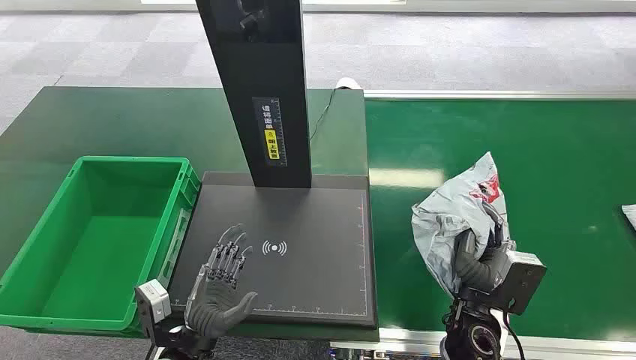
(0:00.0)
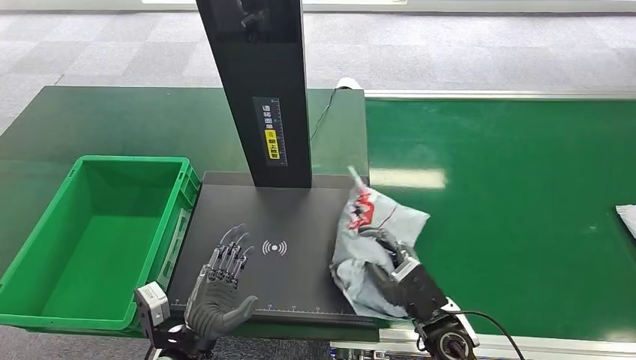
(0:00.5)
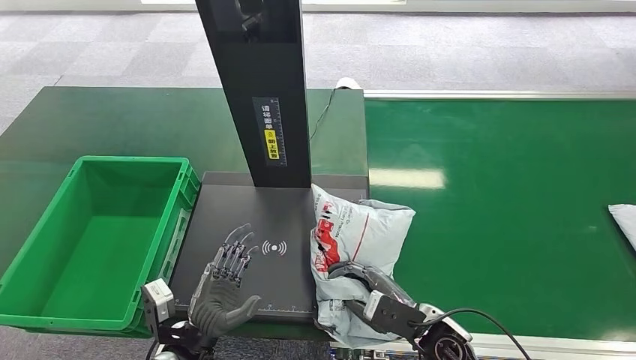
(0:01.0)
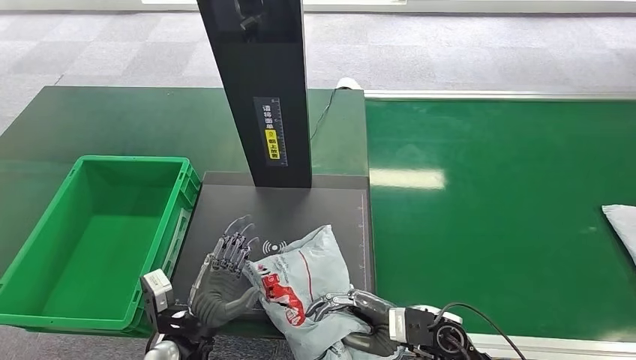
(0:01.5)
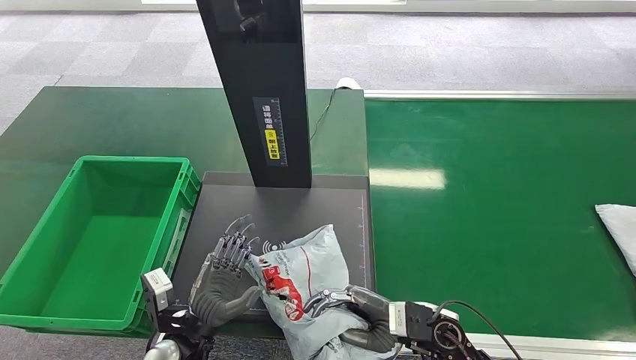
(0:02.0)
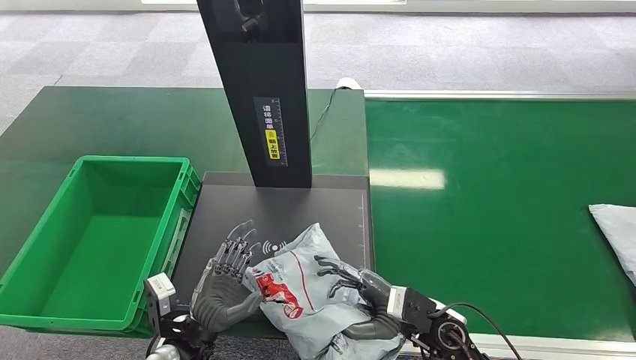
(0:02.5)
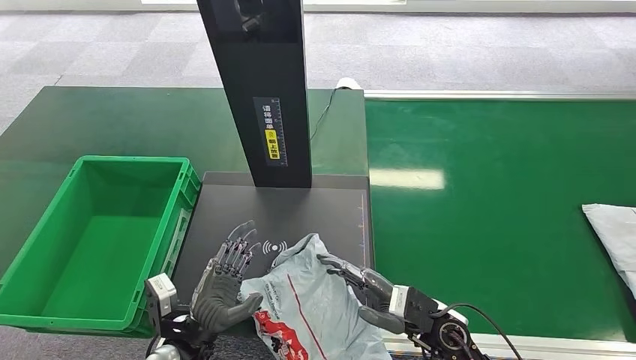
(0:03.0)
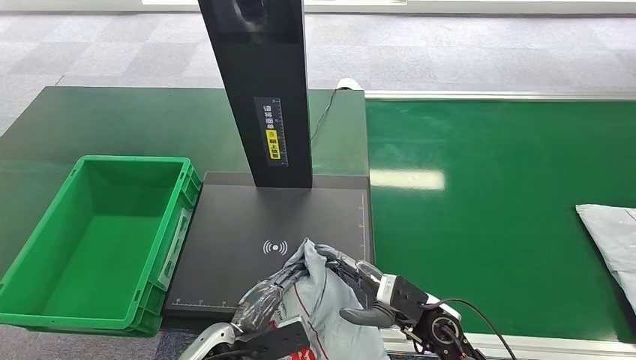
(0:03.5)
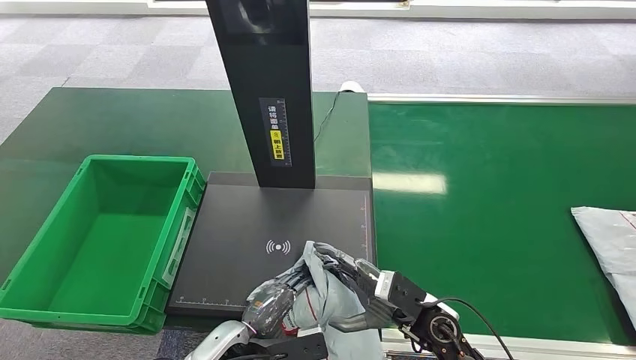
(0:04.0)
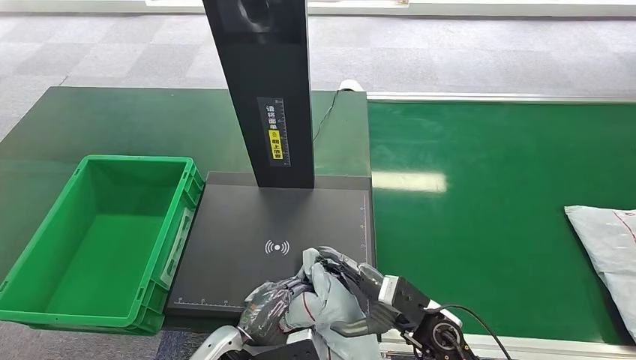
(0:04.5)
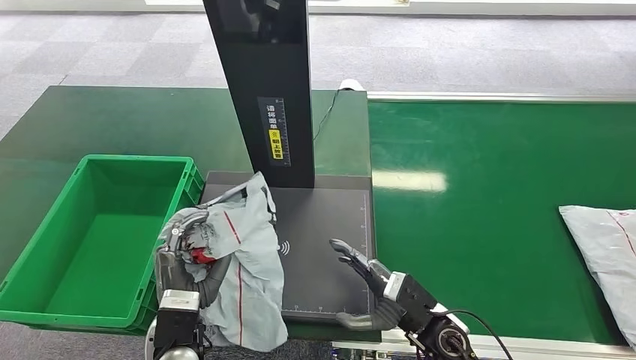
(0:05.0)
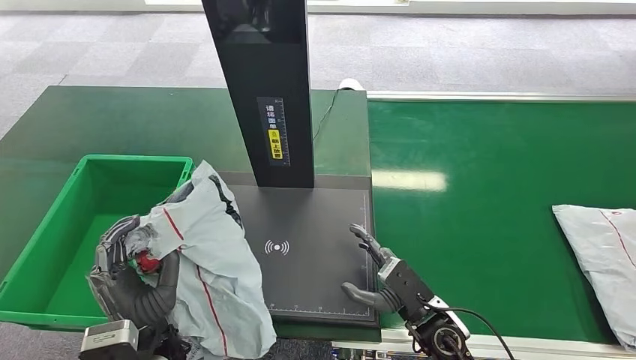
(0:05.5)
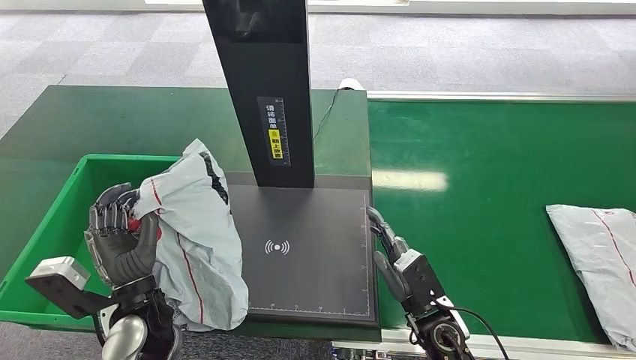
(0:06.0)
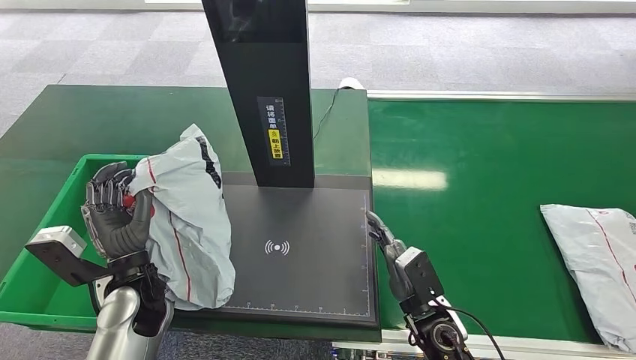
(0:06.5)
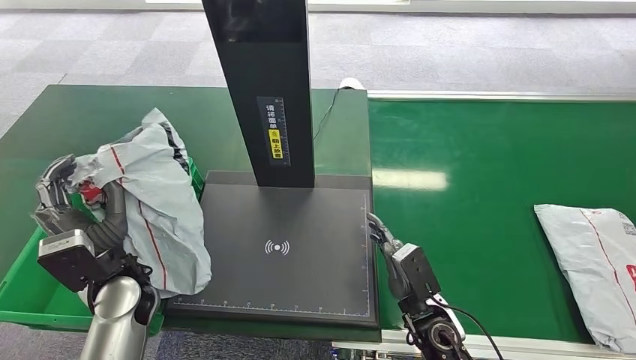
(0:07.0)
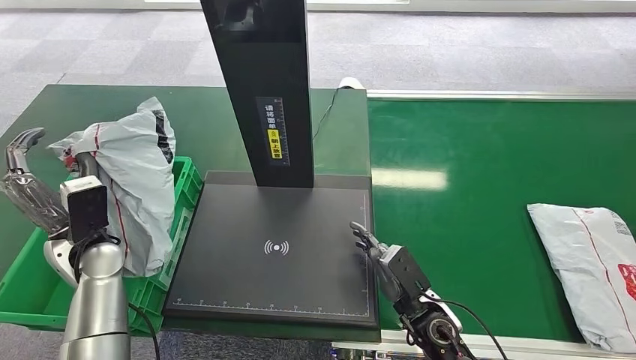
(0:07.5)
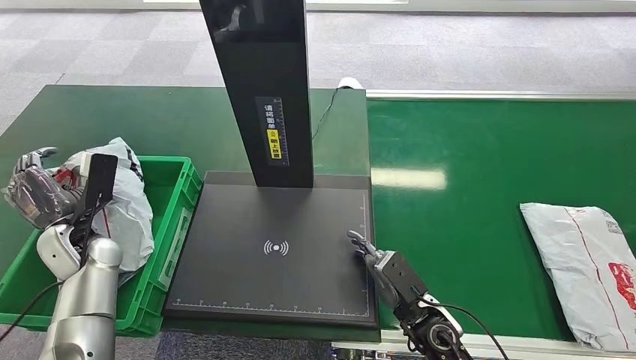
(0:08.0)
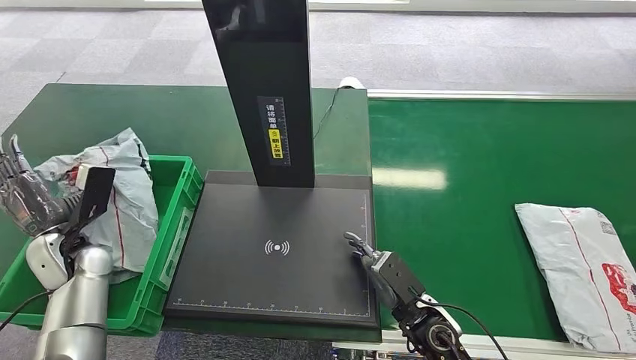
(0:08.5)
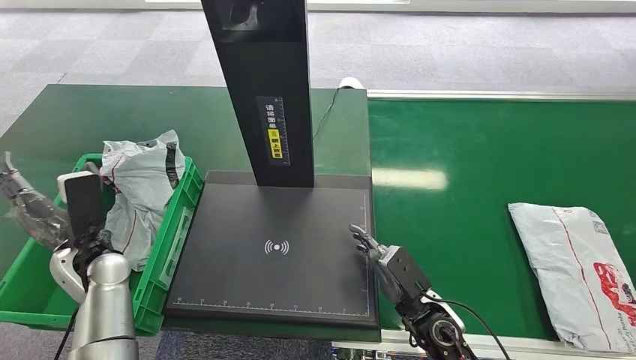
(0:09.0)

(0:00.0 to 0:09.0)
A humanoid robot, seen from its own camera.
0:02.0 - 0:04.5: The left hand heads to the right, covering roughly 5 cm.
0:07.0 - 0:09.0: The left hand heads to the left, covering roughly 5 cm.

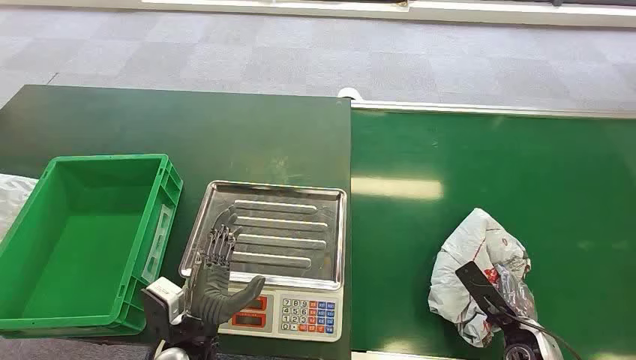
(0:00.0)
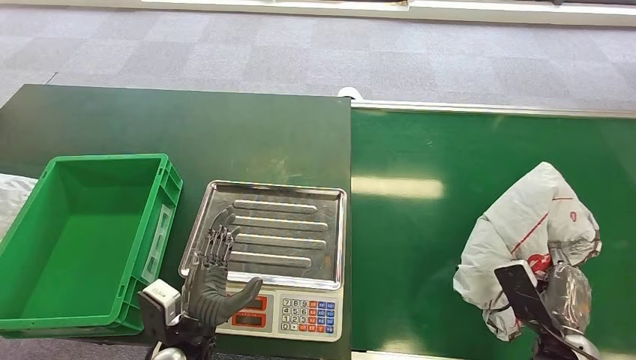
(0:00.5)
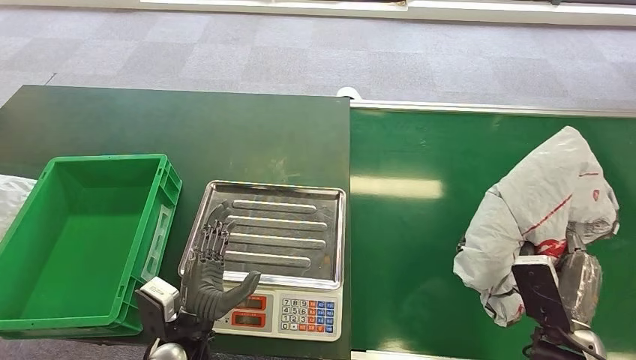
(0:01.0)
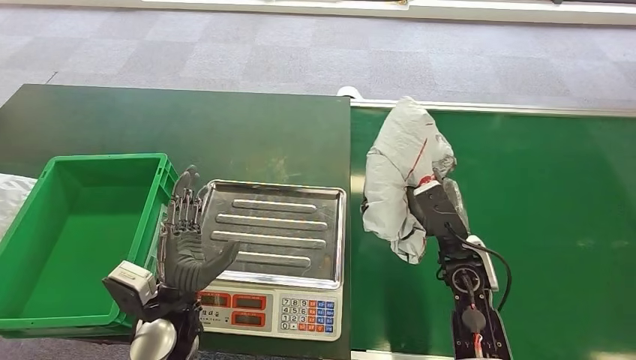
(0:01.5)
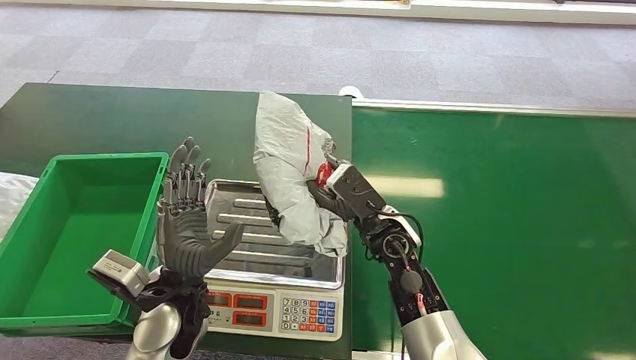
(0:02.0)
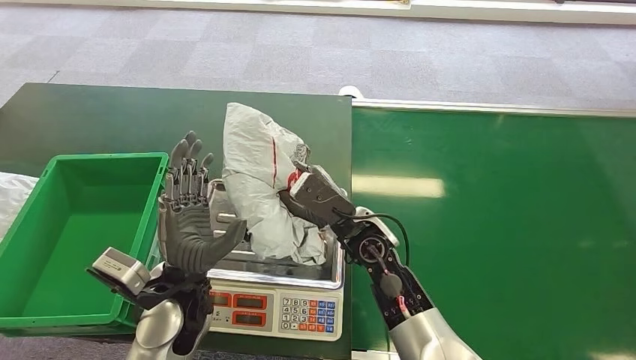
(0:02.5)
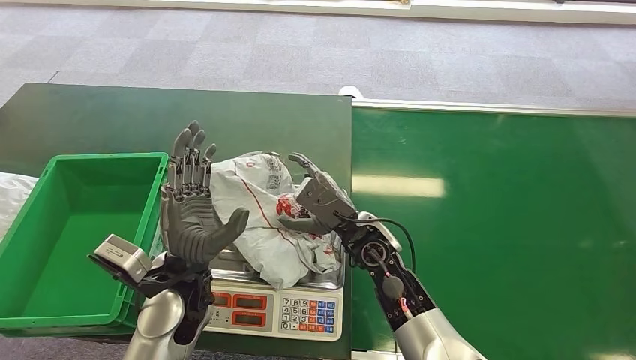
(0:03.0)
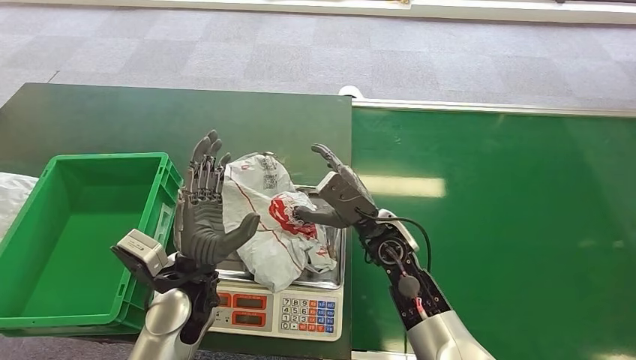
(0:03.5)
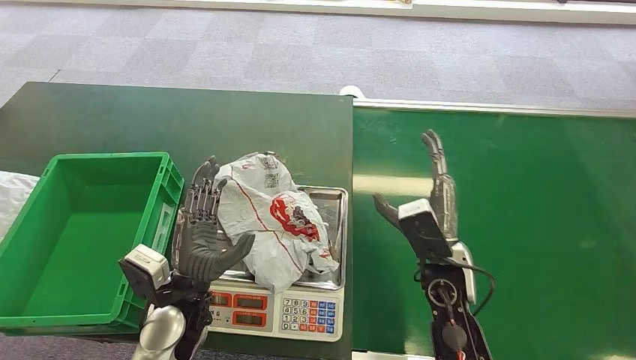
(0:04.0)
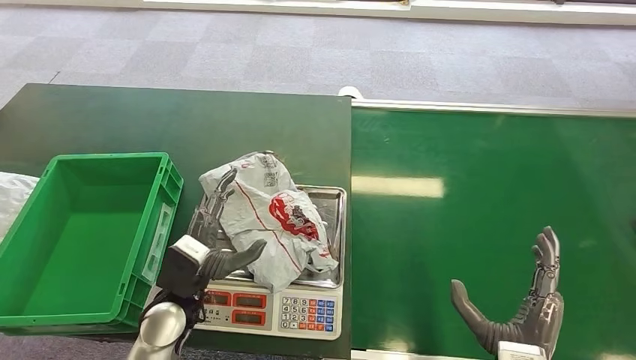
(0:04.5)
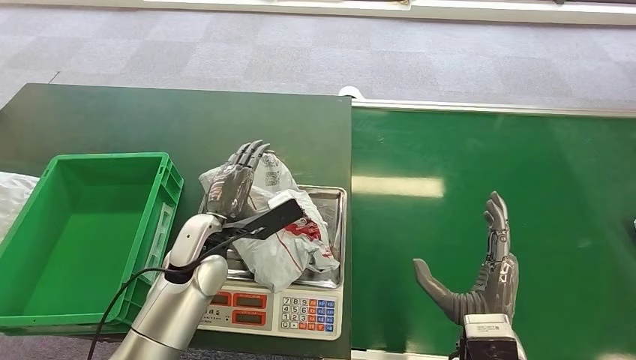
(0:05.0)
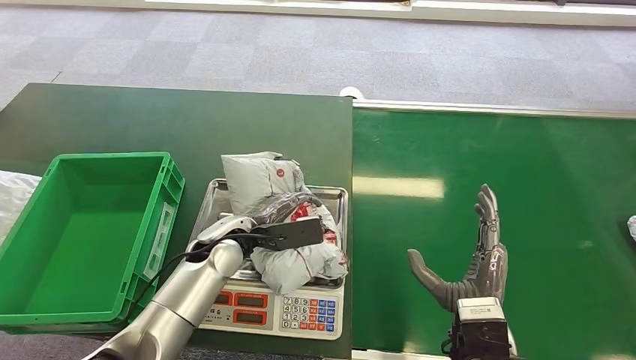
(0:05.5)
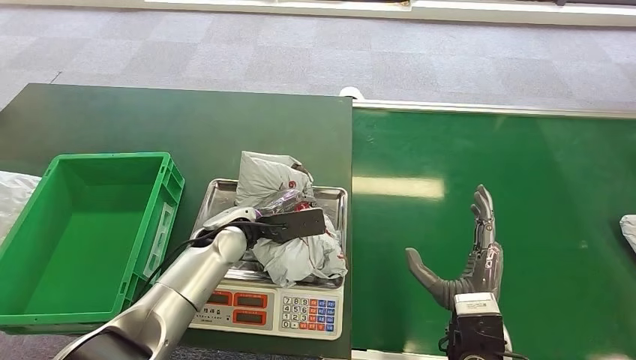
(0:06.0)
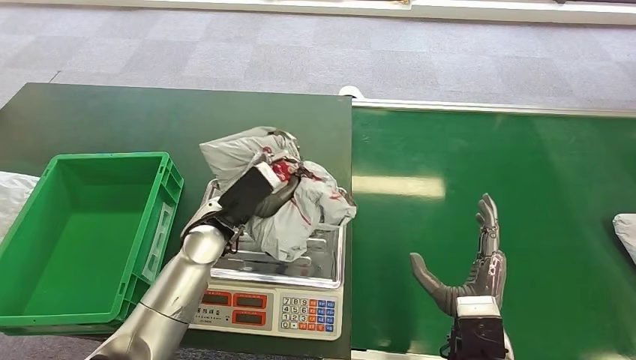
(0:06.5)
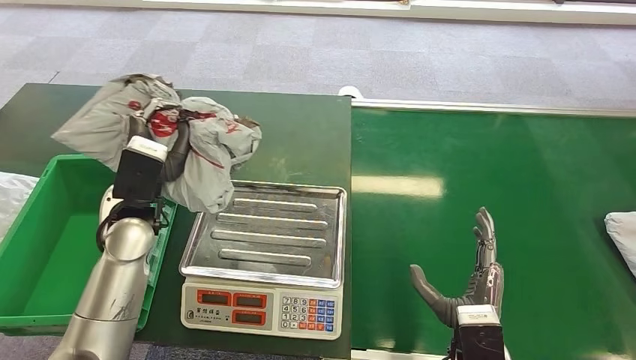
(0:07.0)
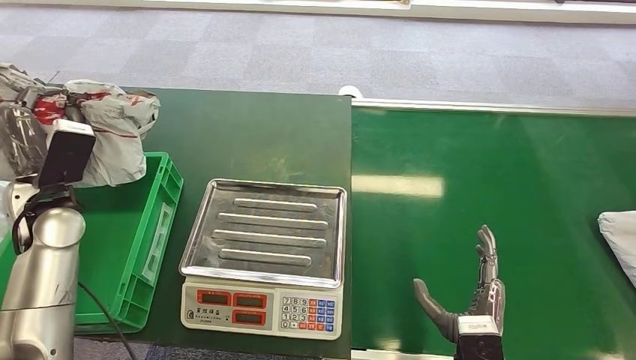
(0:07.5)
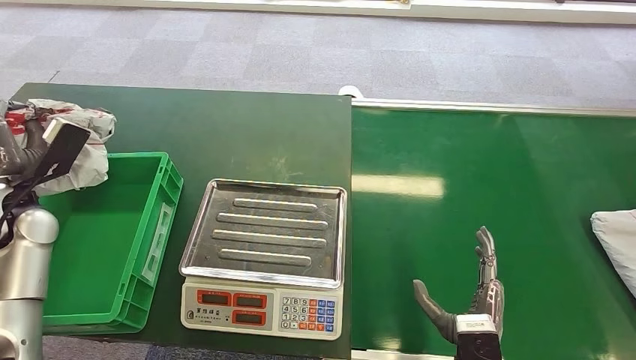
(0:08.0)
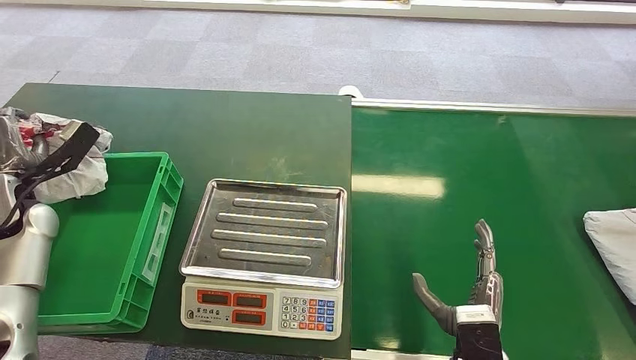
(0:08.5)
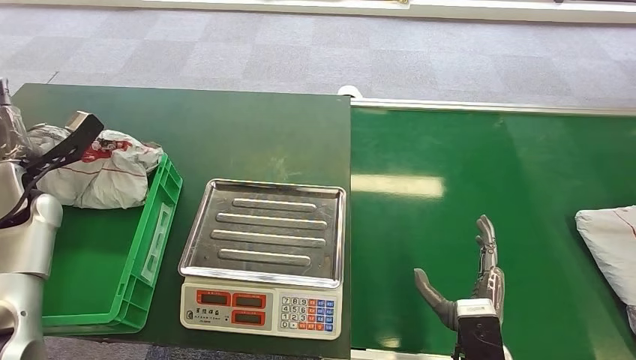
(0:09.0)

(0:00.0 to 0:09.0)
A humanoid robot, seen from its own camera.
Step, 0:00.0 - 0:01.0: Pick up the package from the conveyor belt.
Step, 0:02.0 - 0:03.0: Place the package onto the inbound machine.
Step, 0:06.0 - 0:06.5: Pick up the package from the inbound machine.
Step, 0:08.0 - 0:09.0: Place the package into the parcel locker.
0:02.0 - 0:04.5: The left hand ends up approximately 5 cm from where it was; the right hand is displaced backward and to the right by roughly 25 cm.

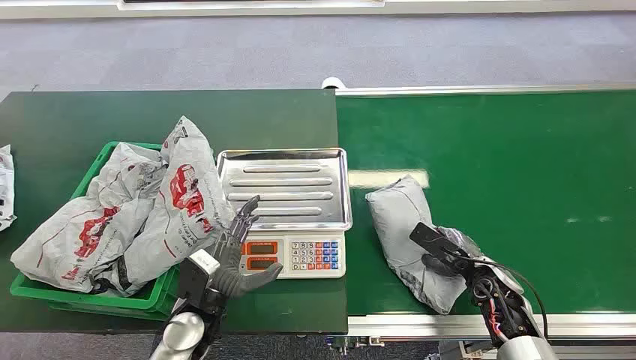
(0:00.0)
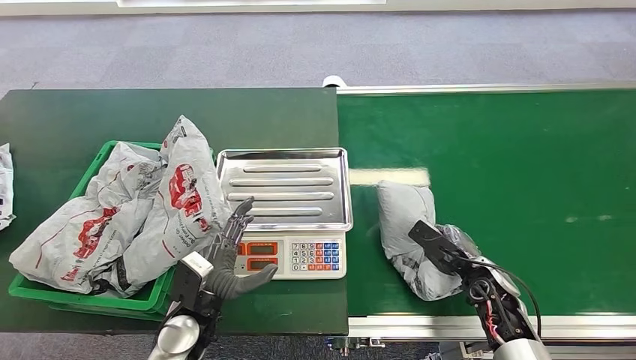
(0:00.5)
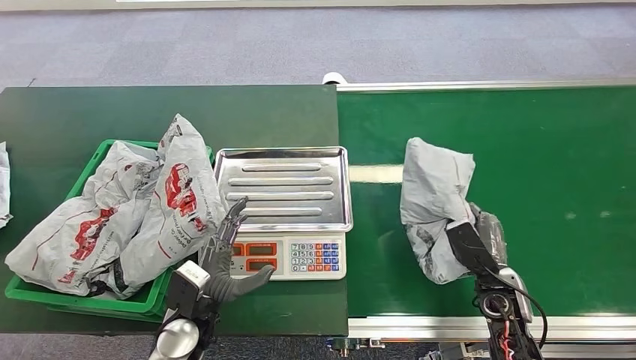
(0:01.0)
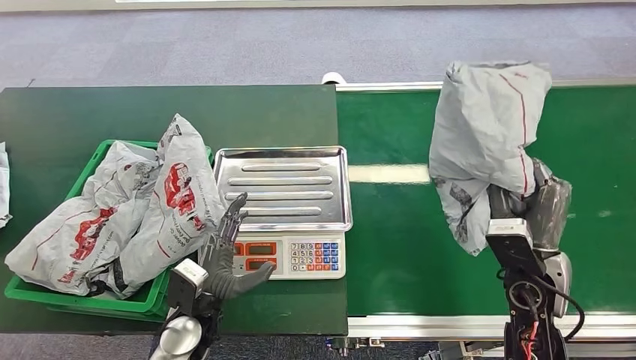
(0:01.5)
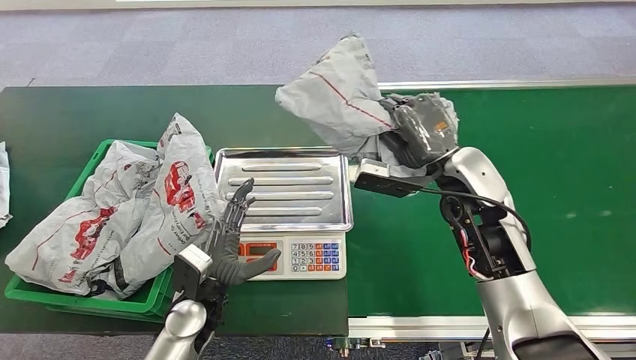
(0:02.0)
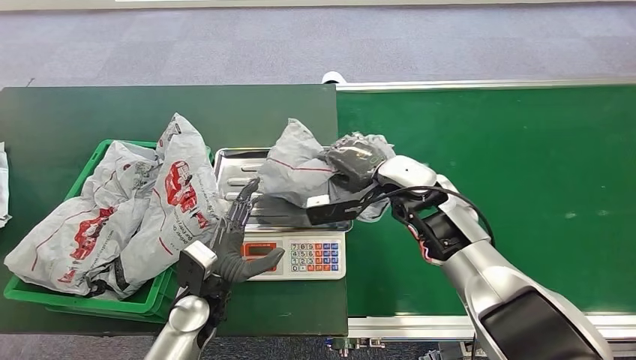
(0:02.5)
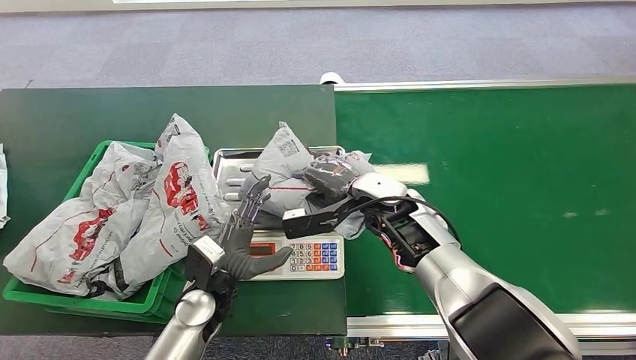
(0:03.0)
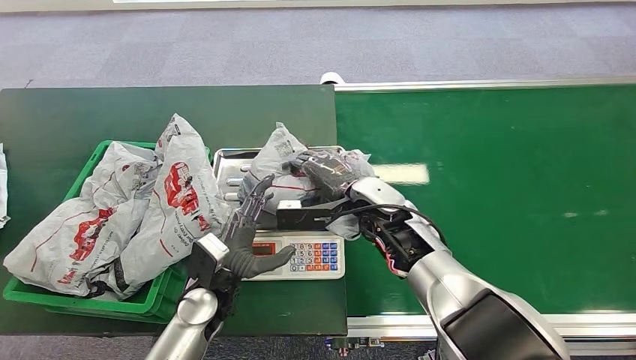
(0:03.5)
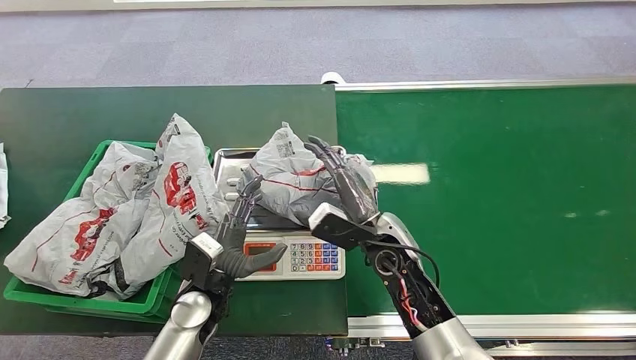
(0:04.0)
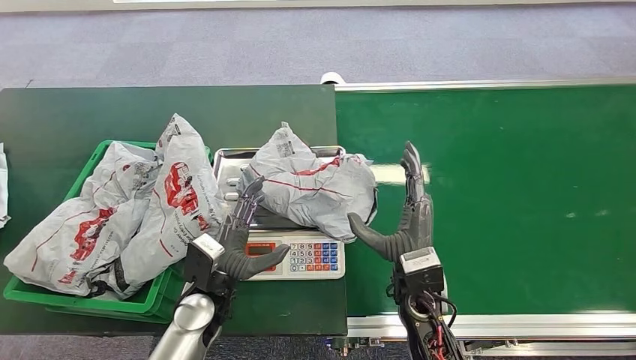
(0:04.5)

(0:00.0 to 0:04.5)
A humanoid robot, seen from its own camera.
Step, 0:00.0 - 0:01.0: Pick up the package from the conveyor belt.
